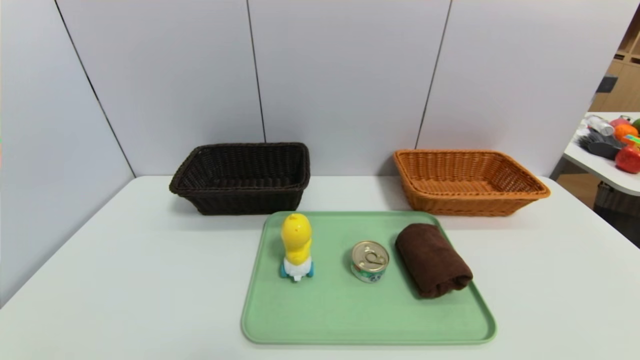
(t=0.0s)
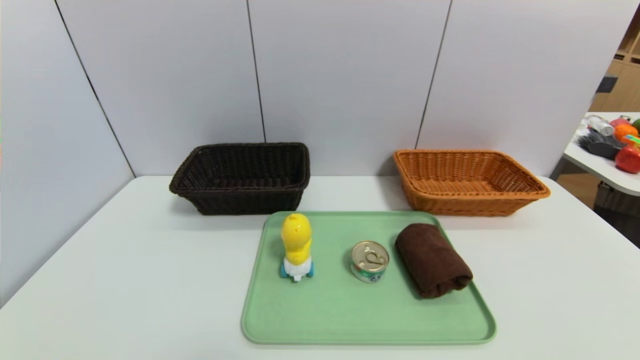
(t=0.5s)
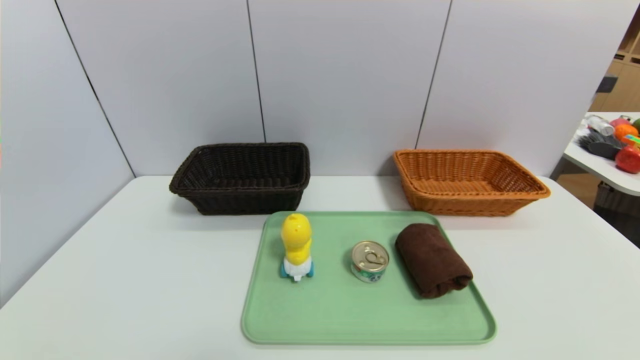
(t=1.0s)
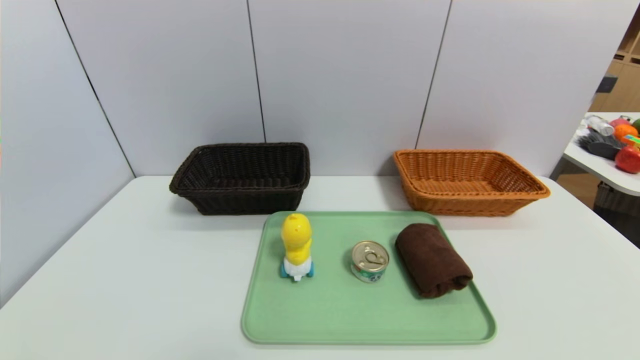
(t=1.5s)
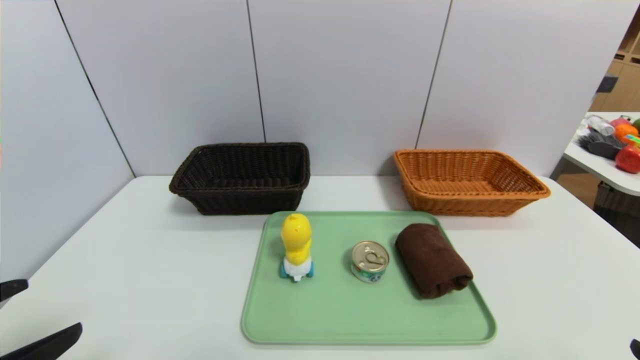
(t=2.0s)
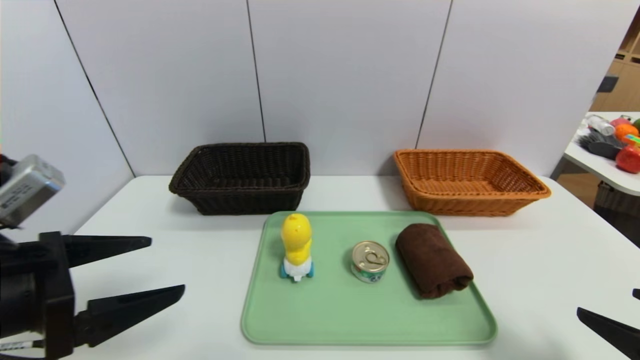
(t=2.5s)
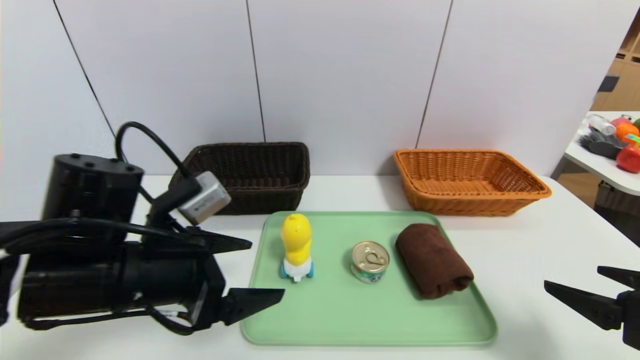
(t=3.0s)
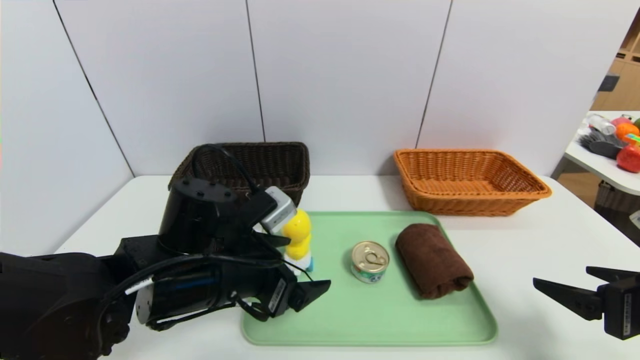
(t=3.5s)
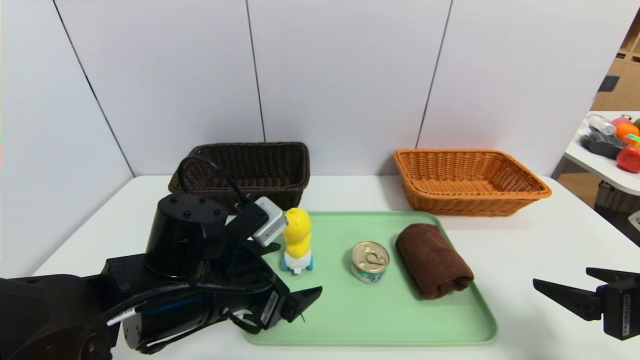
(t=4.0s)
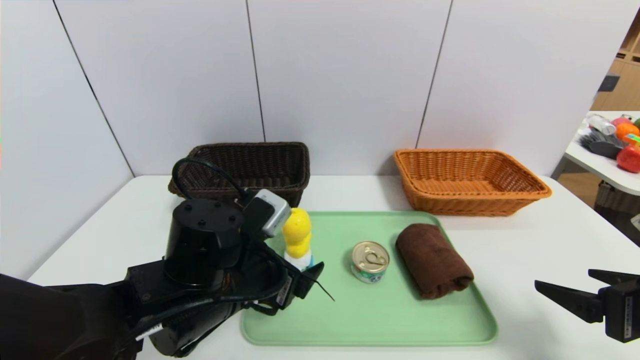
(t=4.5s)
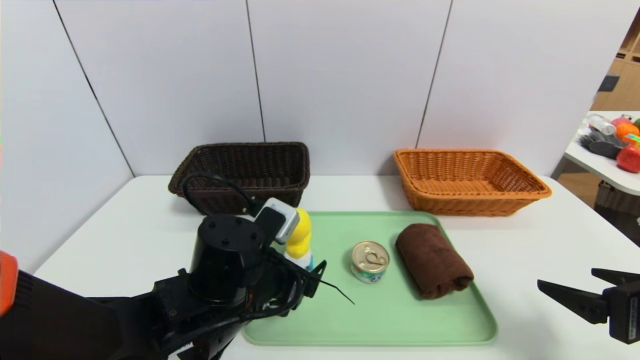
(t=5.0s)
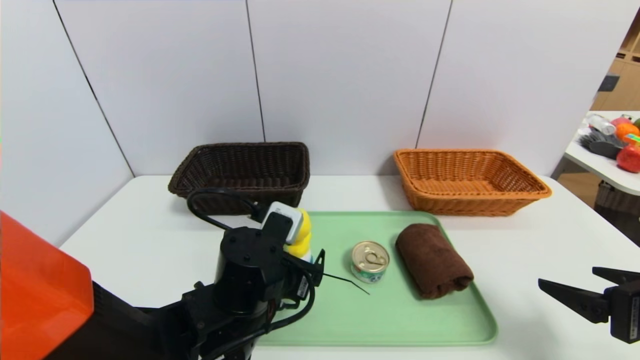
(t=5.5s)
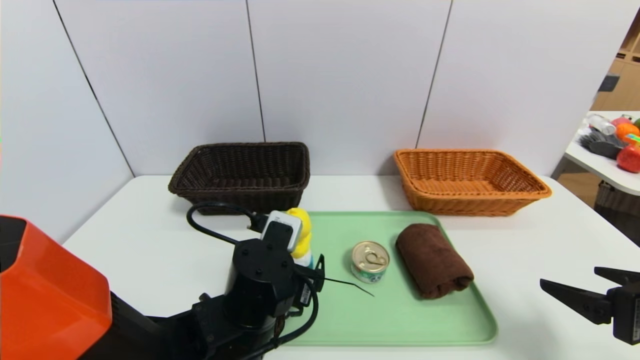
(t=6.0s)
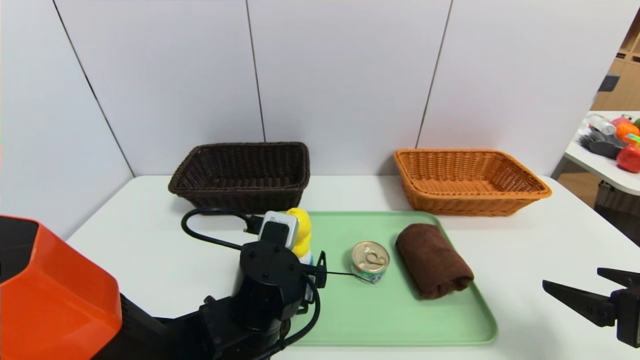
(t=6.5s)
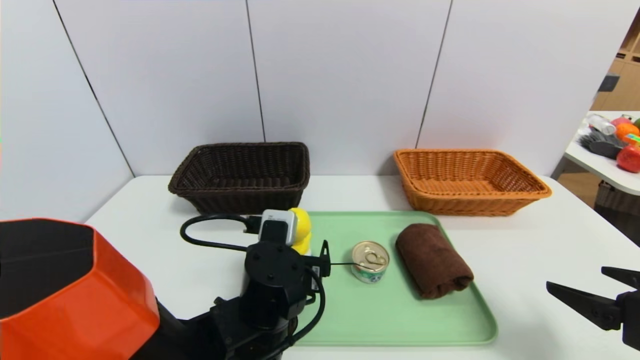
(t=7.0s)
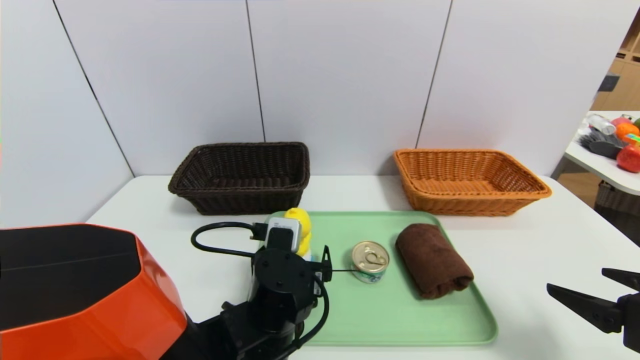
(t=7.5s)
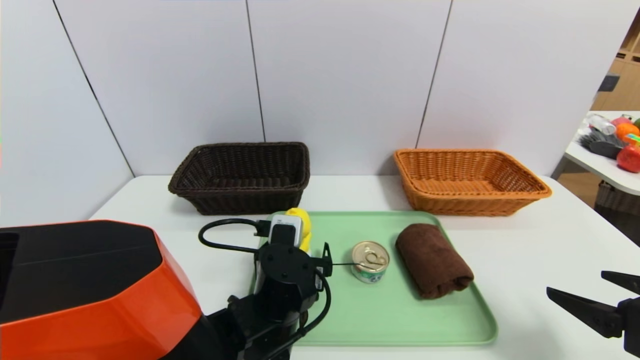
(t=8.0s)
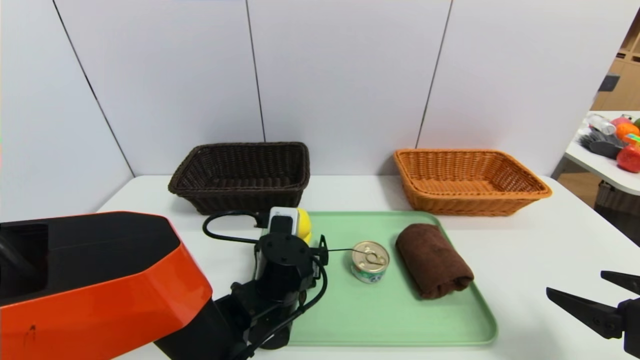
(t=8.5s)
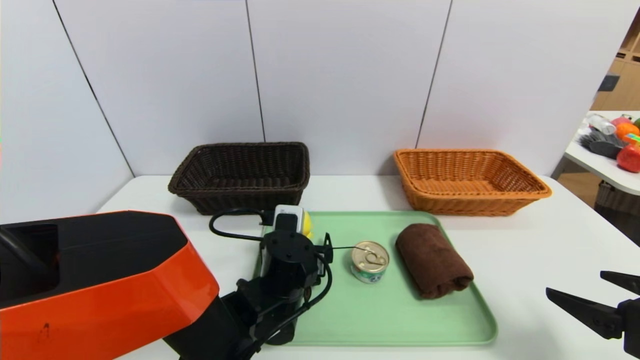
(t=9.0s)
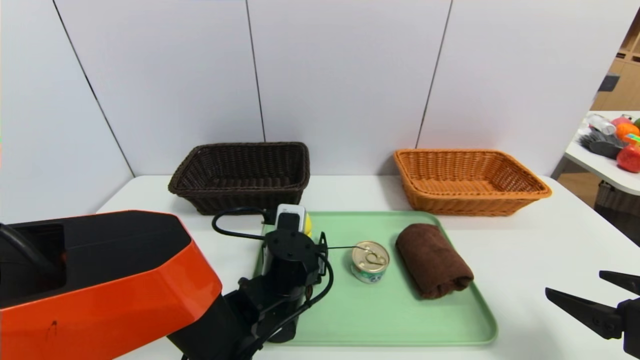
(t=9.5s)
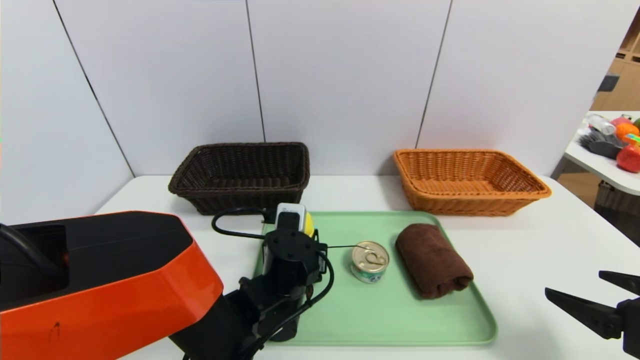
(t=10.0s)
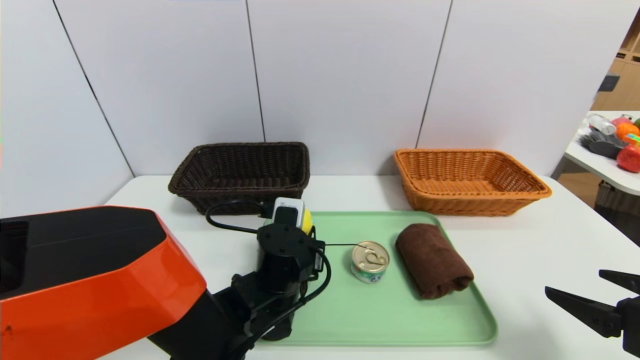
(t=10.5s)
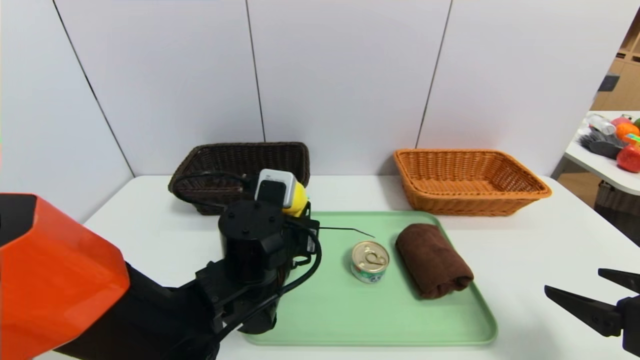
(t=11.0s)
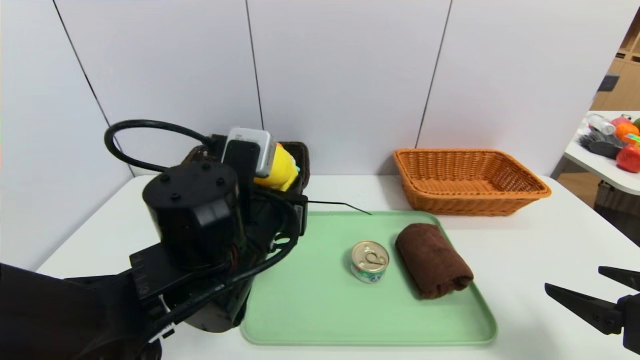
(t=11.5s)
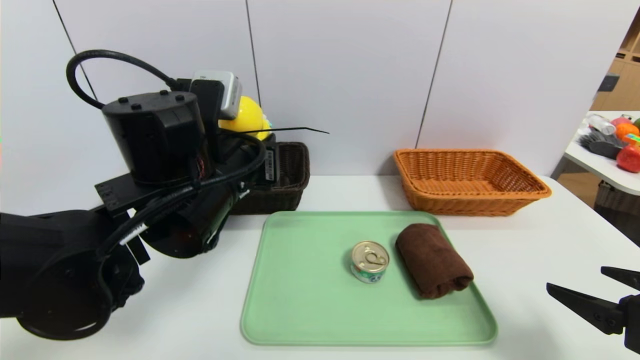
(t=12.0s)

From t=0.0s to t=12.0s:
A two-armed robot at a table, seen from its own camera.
Task of the whole recording: place the food in the right basket with the right gripper, and place the non food items in the left basket with the left gripper.
From t=0.0s to t=2.0s: The left gripper heads upward and forward, covering about 15 cm.
From t=2.0s to t=4.0s: The left gripper heads to the right, forward and downward, covering some 25 cm. Meanwhile the right gripper goes roughly 10 cm forward.
From t=4.0s to t=6.0s: The left gripper heads to the right, covering about 5 cm.
From t=6.0s to t=8.0s: The grippers stay close to where they were, moving slightly.
From t=8.0s to t=10.0s: The left gripper closes up.
From t=10.0s to t=12.0s: The left gripper moves upward and to the left, about 20 cm.

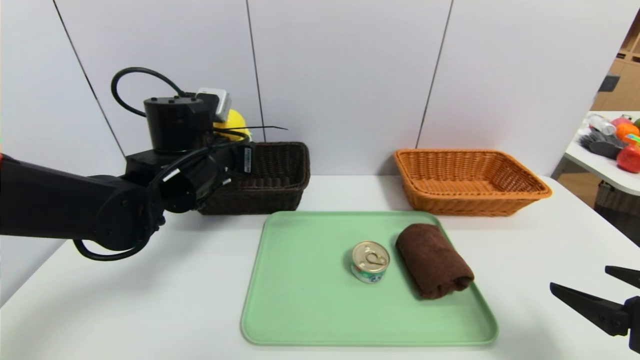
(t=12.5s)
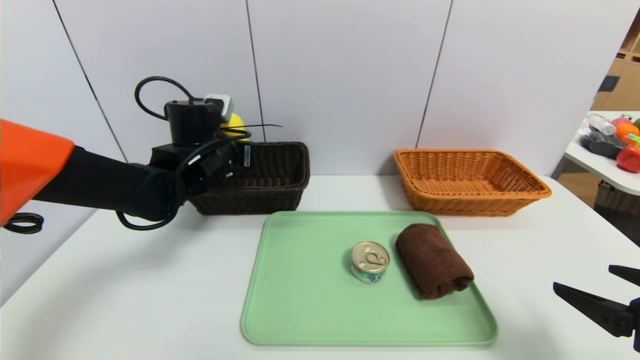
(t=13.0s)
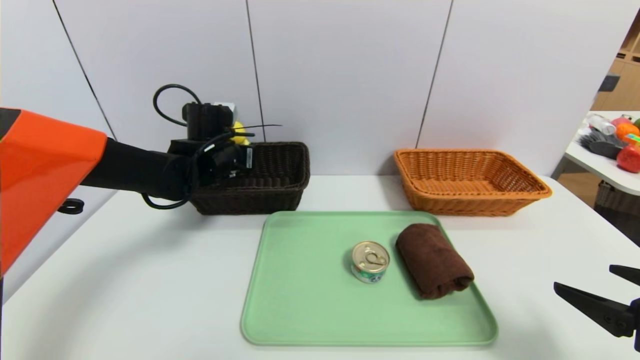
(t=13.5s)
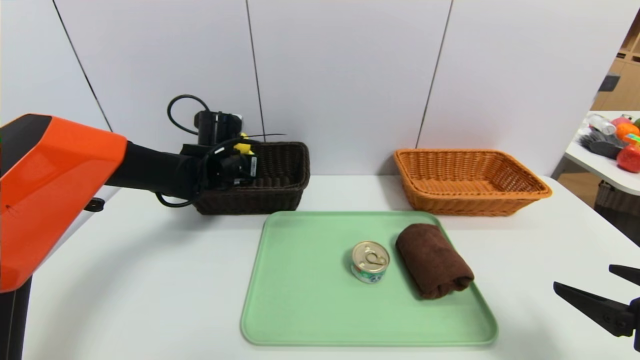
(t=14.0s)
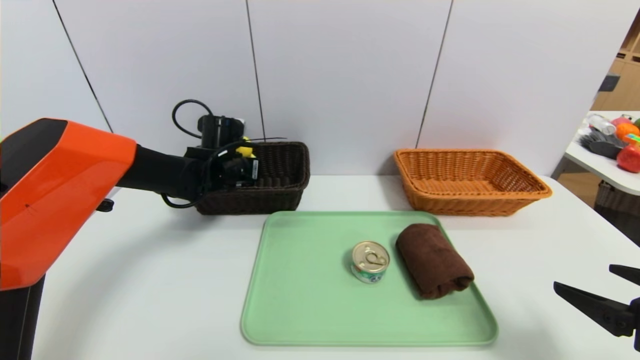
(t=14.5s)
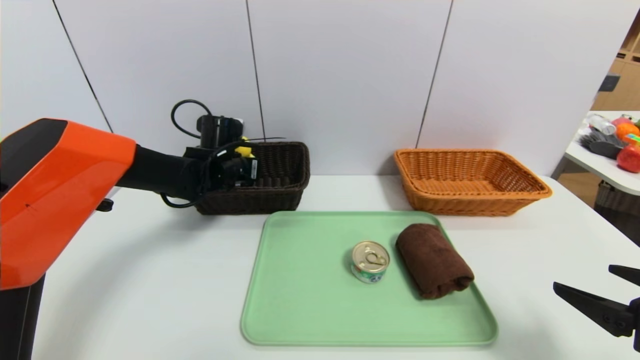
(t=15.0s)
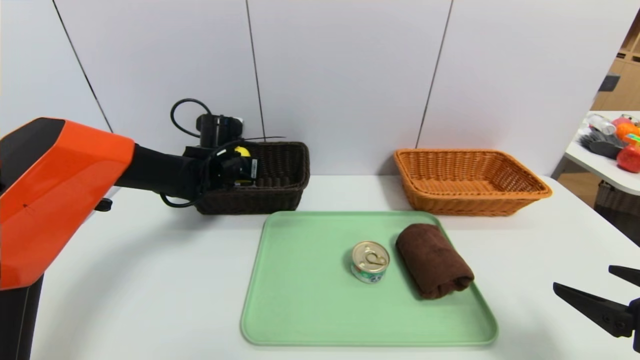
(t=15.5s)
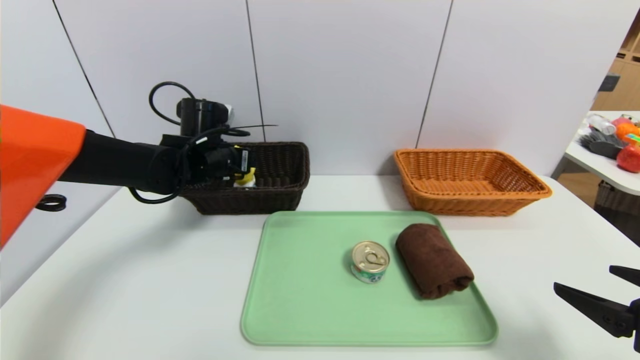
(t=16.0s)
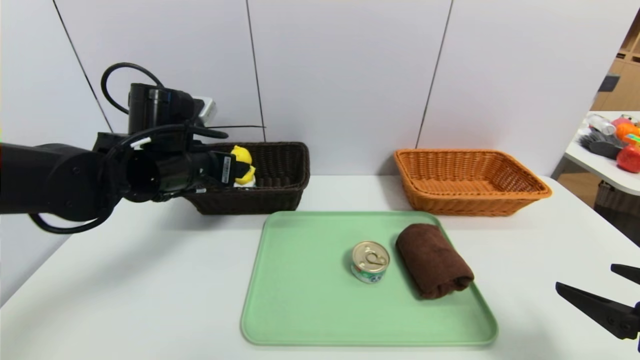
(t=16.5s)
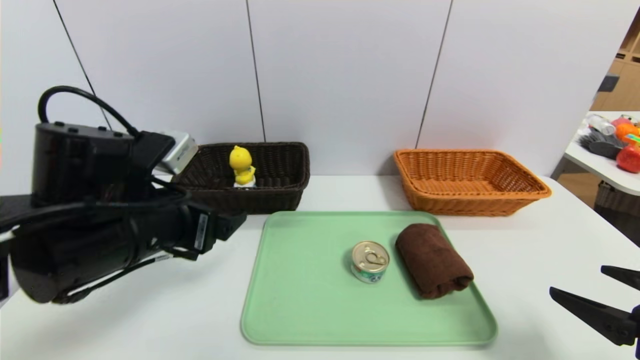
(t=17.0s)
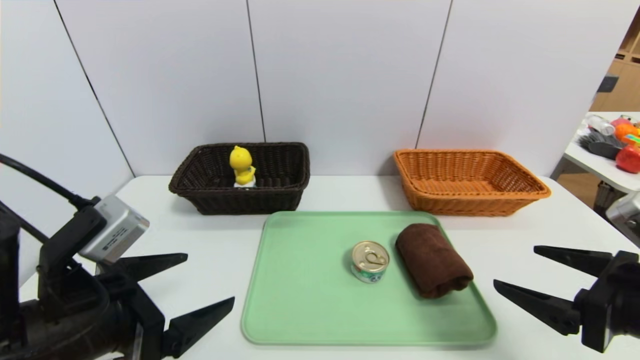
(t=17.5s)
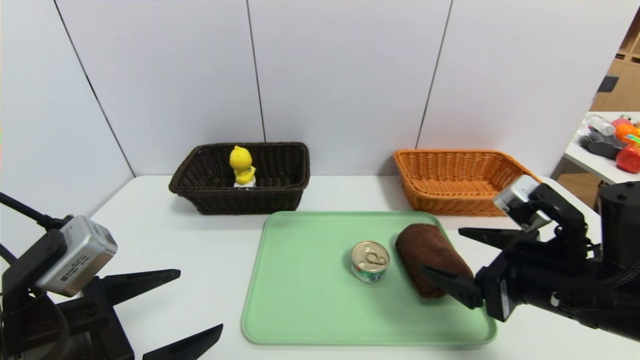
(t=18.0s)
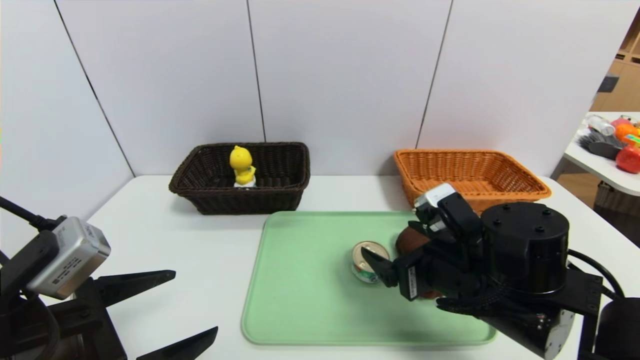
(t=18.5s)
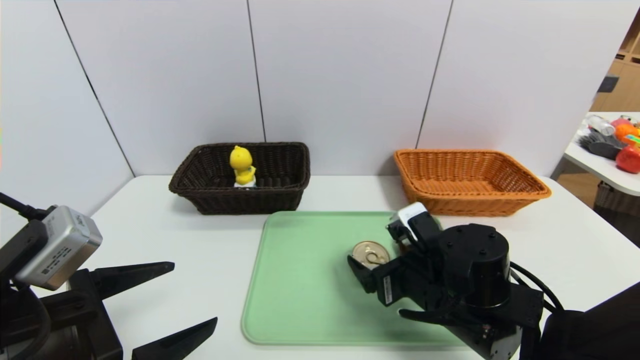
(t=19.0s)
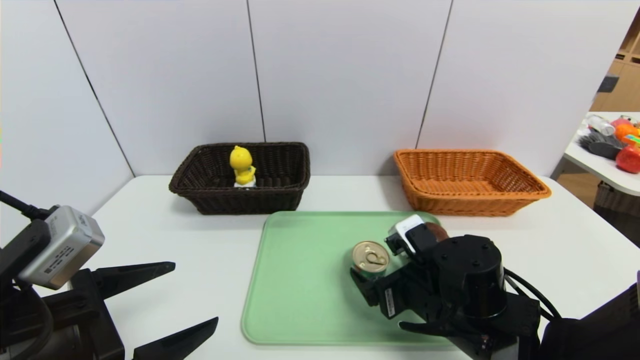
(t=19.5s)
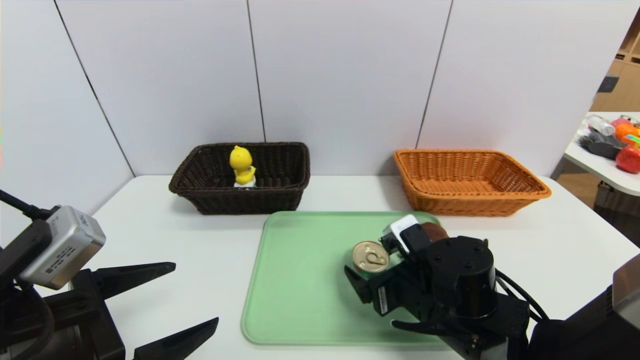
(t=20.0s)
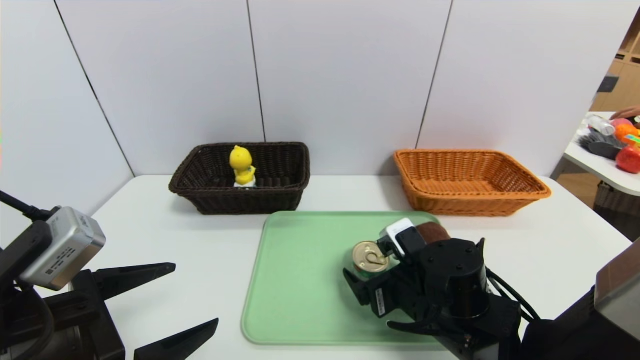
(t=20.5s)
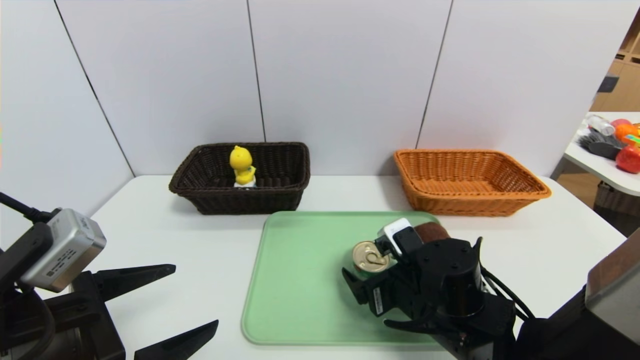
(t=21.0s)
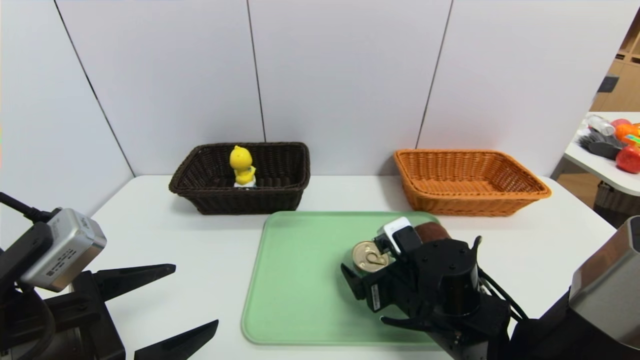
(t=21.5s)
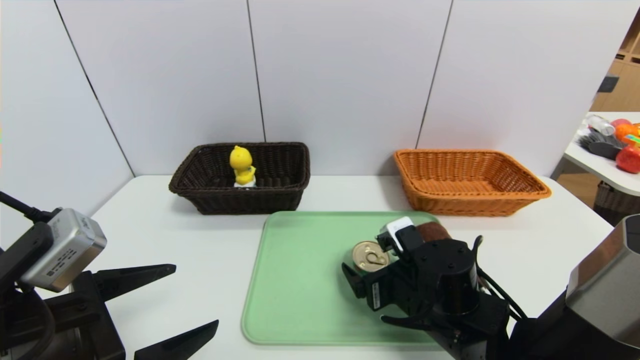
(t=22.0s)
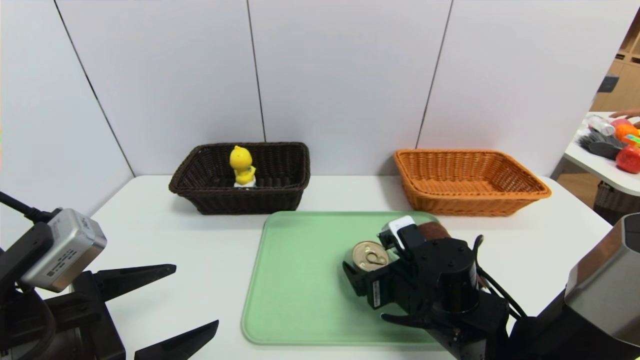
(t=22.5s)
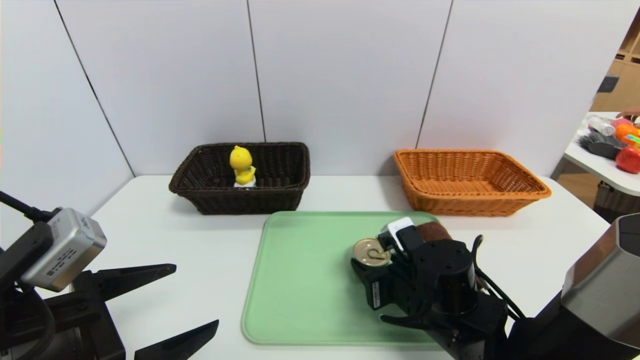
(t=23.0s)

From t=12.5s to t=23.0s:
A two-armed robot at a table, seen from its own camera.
Task of the whole recording: place the food in the right basket with the right gripper, and place the non food items in the left basket with the left gripper.
Step, from t=12.5s to t=15.5s: Grasp the yellow duck and put it in the left basket.
From t=12.5s to t=14.5s: The left gripper is displaced forward and downward by about 15 cm.
From t=14.5s to t=16.5s: The left gripper travels backward and upward by roughly 15 cm, and opens up.
From t=16.5s to t=19.0s: The right gripper is displaced to the left and forward by roughly 20 cm. Meanwhile the left gripper travels backward by roughly 20 cm.
From t=19.0s to t=21.0s: There are only small adjustments of the grippers.
From t=21.0s to t=23.0s: The right gripper closes up.
